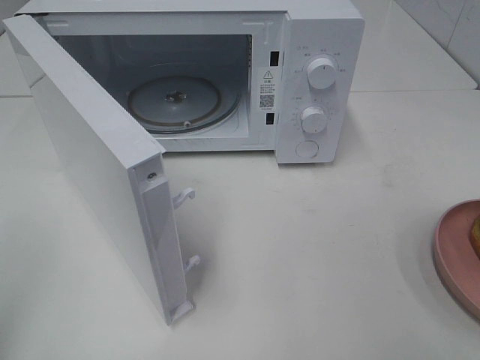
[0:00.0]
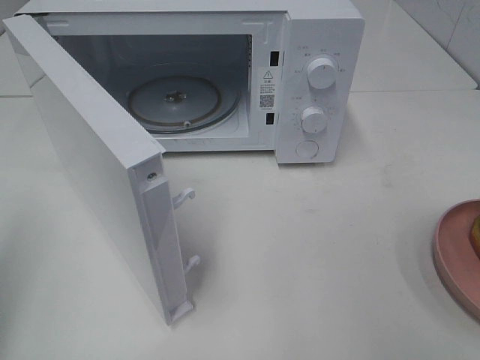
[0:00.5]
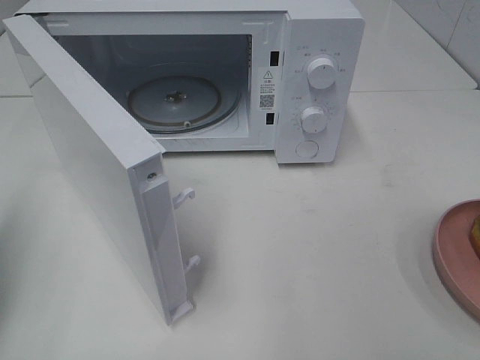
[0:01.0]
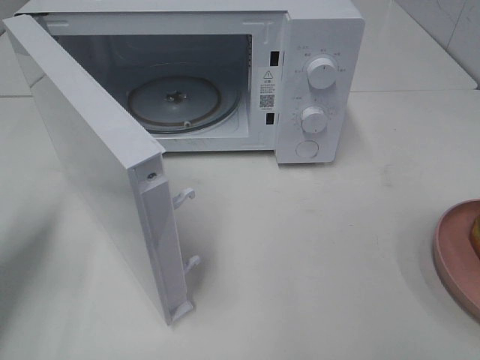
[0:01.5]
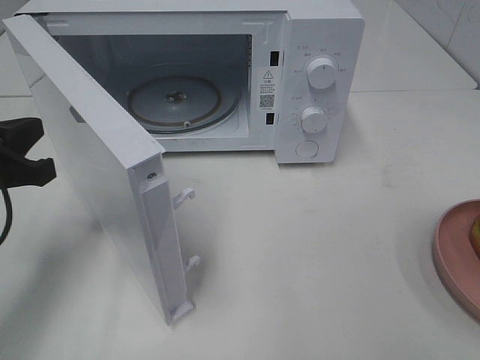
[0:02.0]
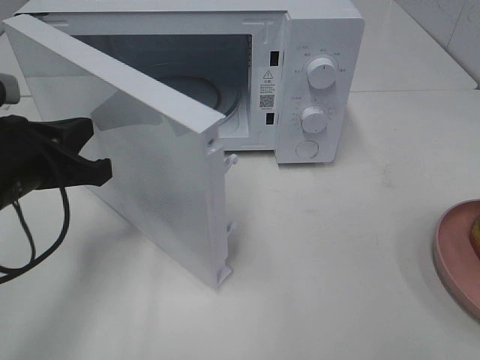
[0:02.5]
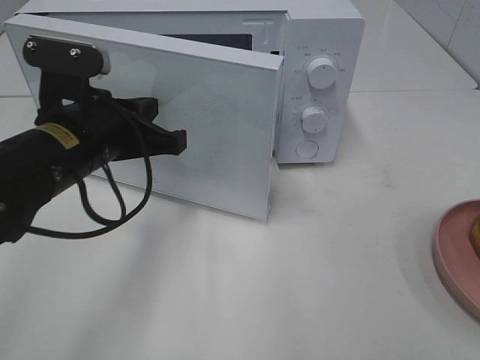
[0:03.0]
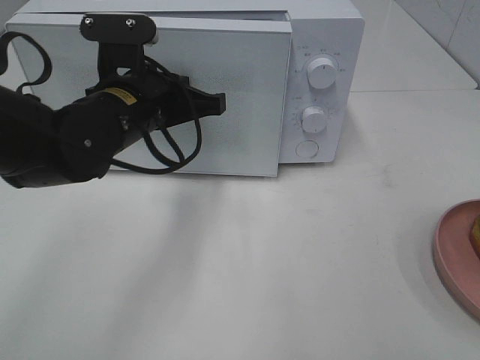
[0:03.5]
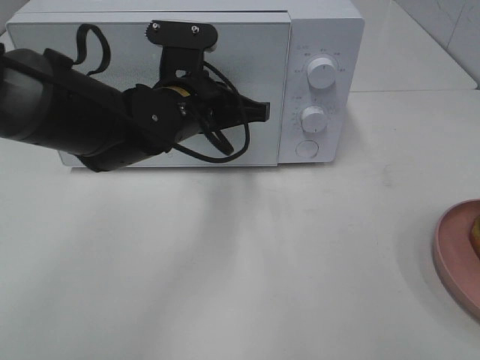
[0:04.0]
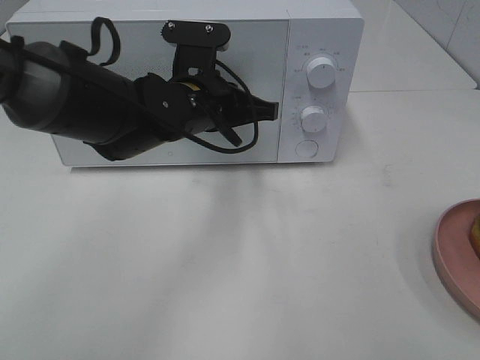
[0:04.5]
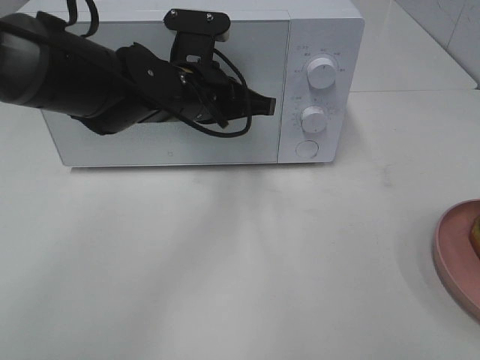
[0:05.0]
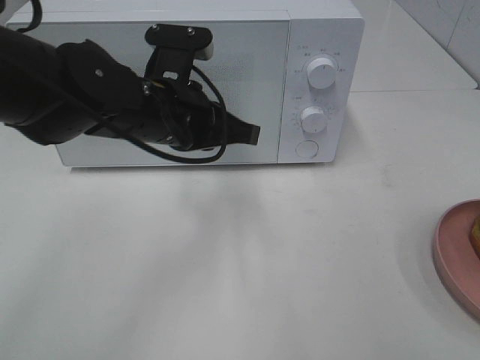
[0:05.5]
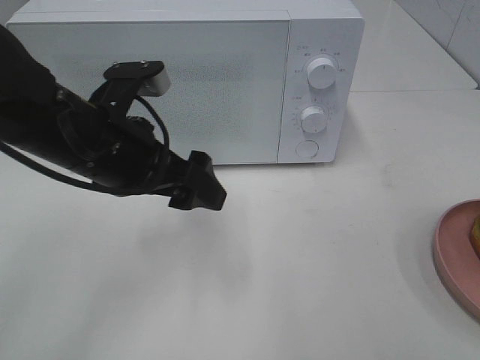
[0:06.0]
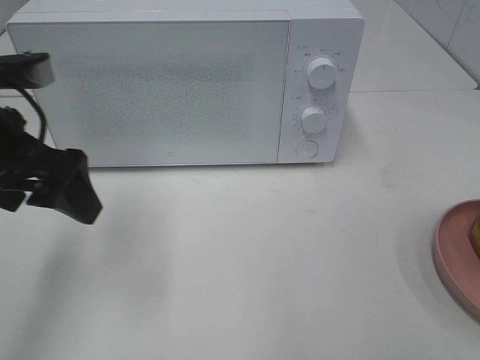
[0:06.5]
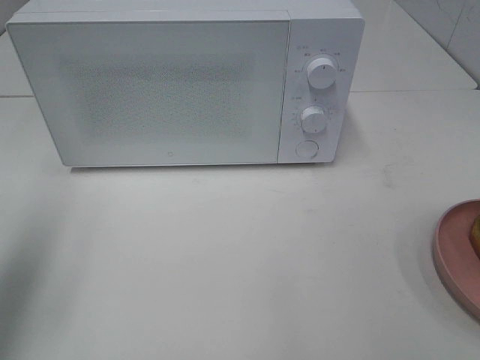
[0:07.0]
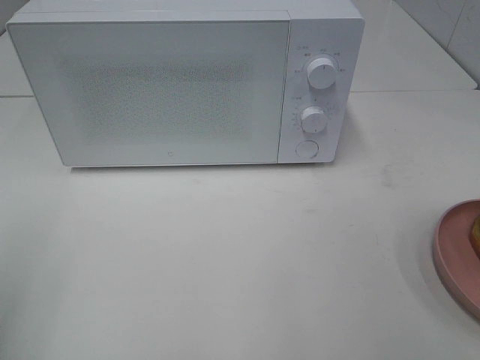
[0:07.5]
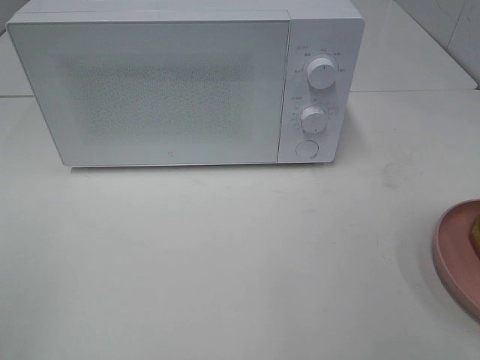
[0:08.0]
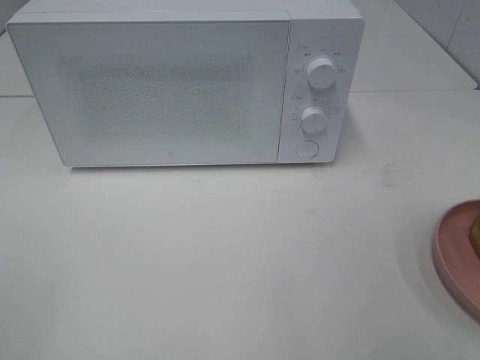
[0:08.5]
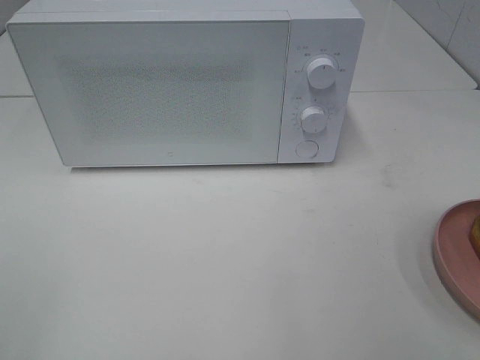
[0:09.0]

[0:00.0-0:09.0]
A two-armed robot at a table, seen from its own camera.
Task of the whole recording: Heat the burger.
Step, 0.0 to 5.0 s: Left hand: close the microwave door.
0.0 to 2.0 s: The left gripper heads forward and downward, covering about 25 cm.
2.0 to 4.5 s: The left gripper is displaced to the right and forward by some 25 cm.
4.5 to 7.0 s: The left gripper shifts approximately 35 cm to the left, backward and upward, and opens up.
7.0 to 9.0 s: The left gripper moves backward, roughly 20 cm.

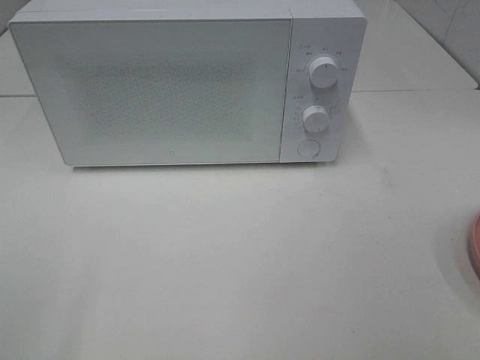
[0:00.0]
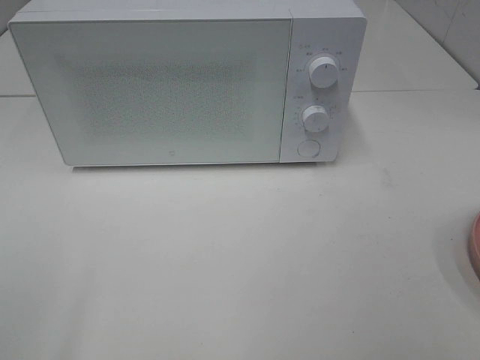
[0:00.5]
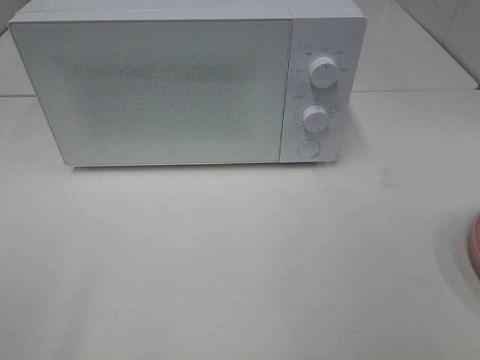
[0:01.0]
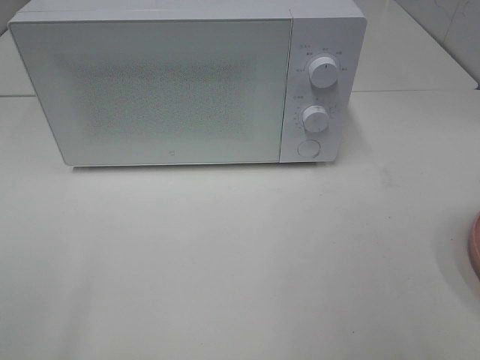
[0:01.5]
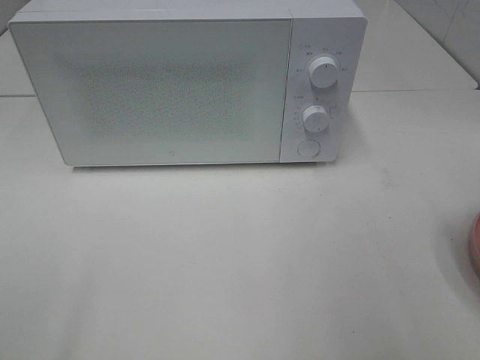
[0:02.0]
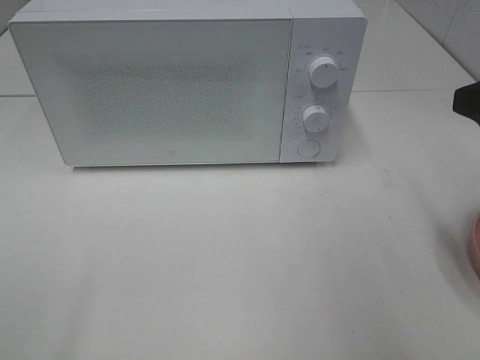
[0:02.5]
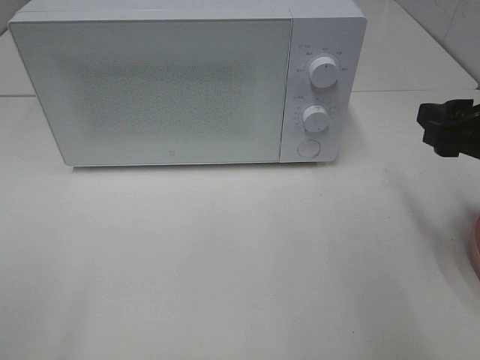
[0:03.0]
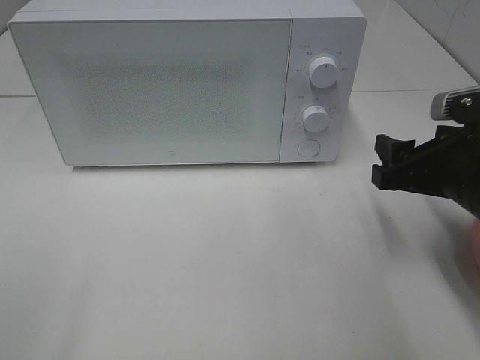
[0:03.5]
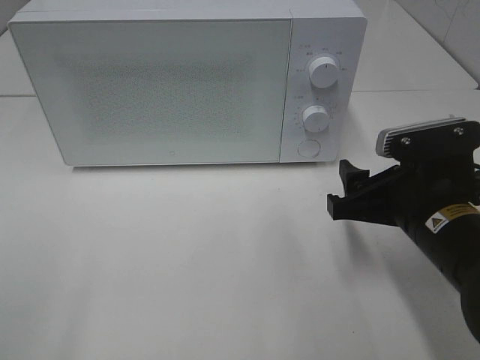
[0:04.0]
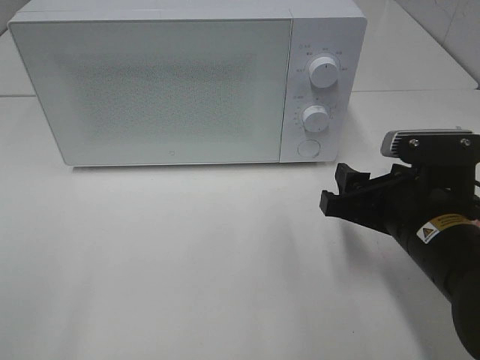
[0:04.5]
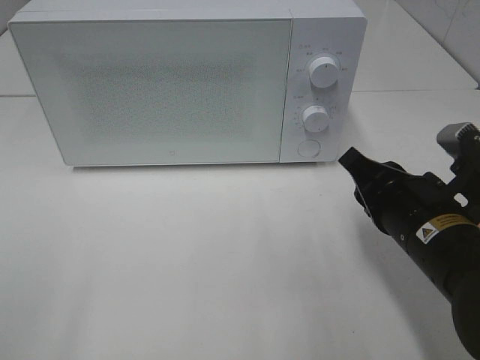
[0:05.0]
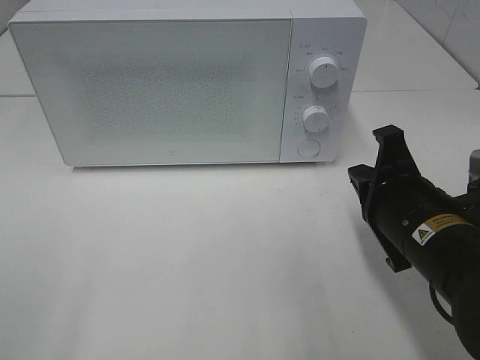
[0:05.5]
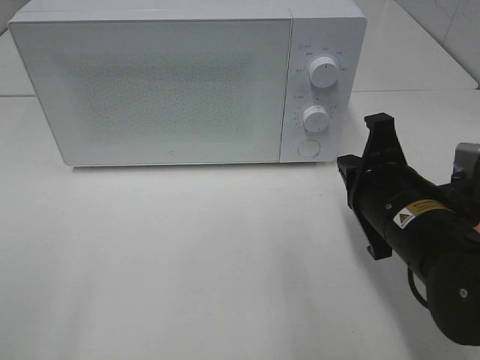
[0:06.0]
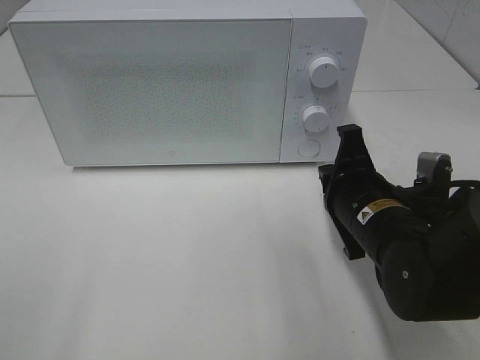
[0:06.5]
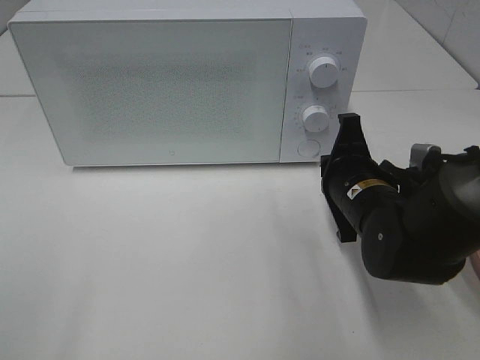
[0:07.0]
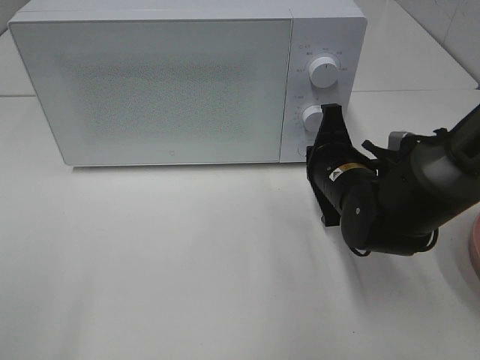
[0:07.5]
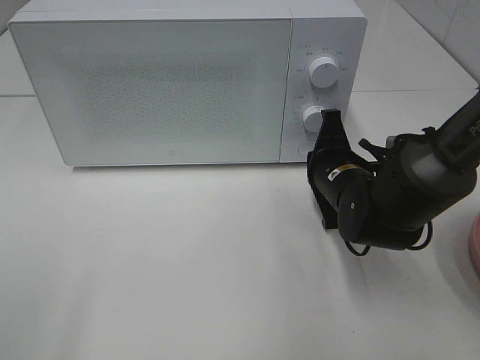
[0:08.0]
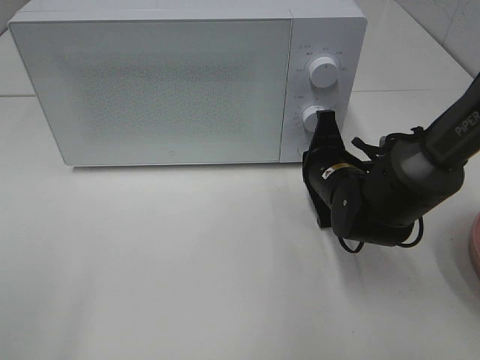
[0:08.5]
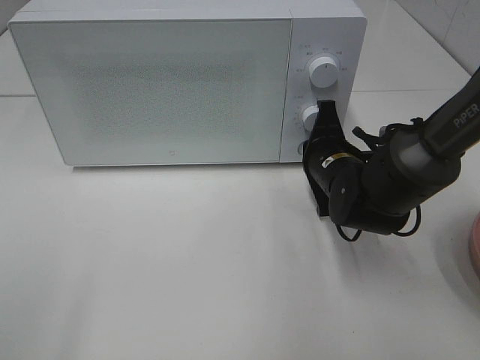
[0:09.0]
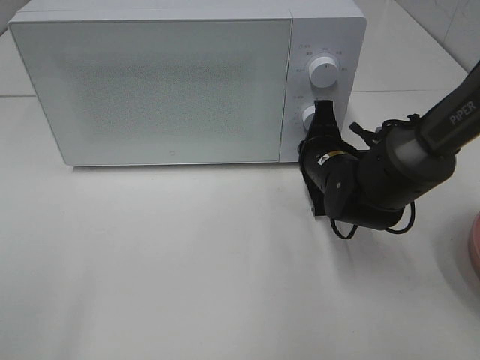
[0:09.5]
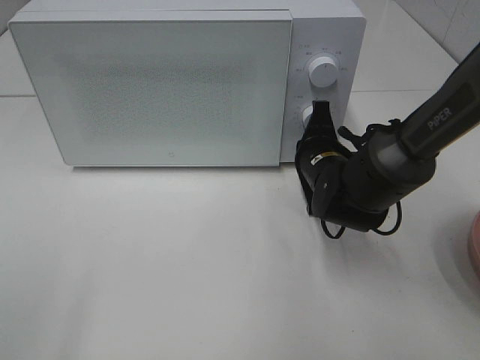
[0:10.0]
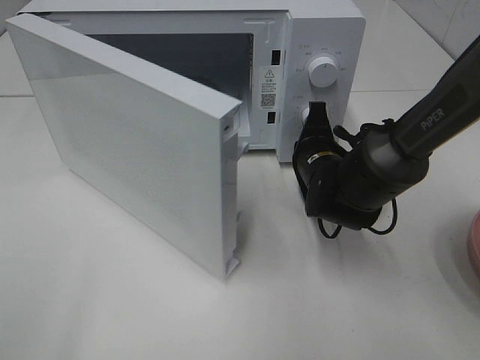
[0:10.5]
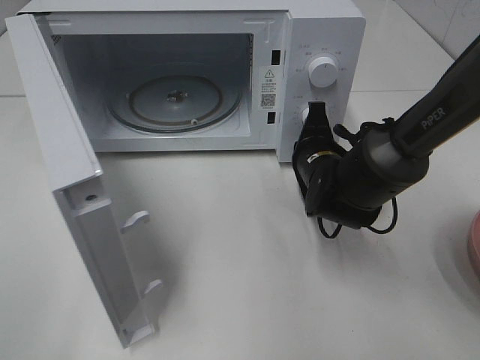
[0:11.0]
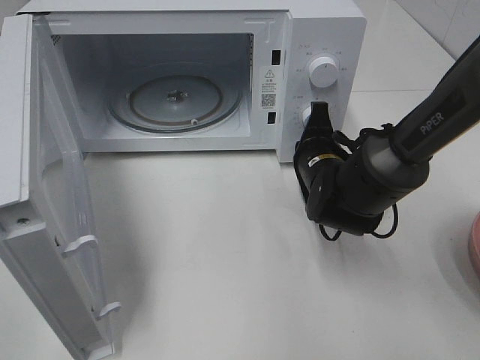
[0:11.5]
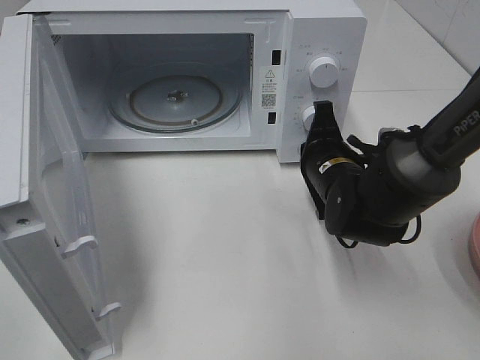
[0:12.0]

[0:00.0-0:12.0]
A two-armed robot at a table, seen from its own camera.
Task of the whole recording: Heat the burger.
Step, 0.0 to 11.5 s: Right hand: press the switch.
2.0 to 4.0 s: The right gripper goes approximately 20 cm downward, to the left and forward.
4.0 to 6.0 s: The right gripper closes.
6.0 to 8.0 s: The right gripper is displaced forward and downward by roughly 10 cm.
8.0 to 10.0 s: The grippers make only small movements.

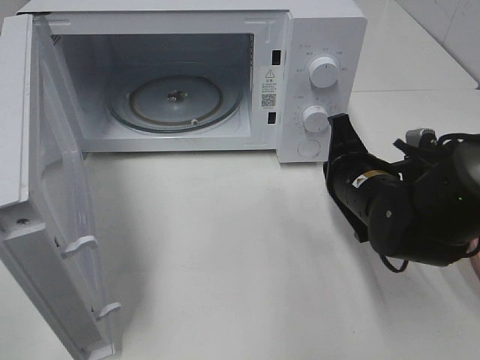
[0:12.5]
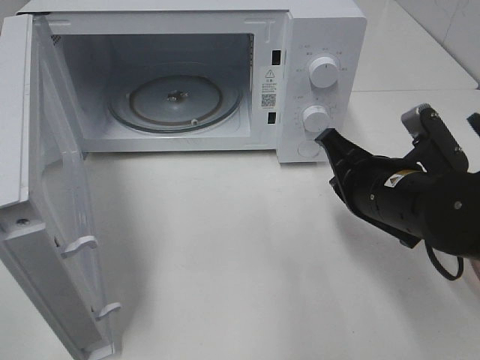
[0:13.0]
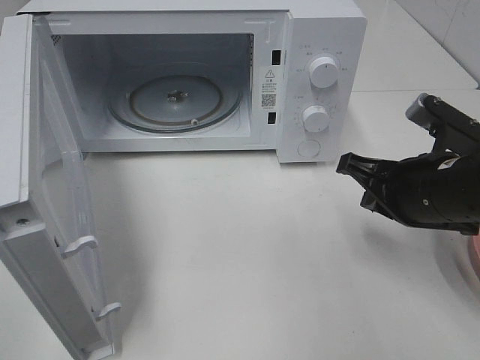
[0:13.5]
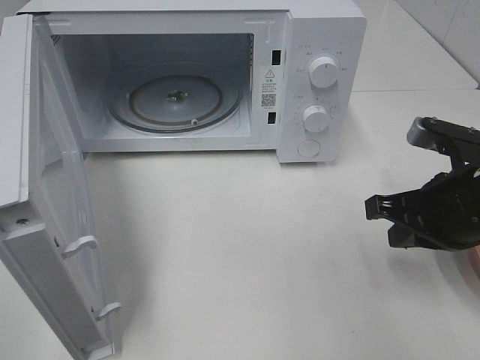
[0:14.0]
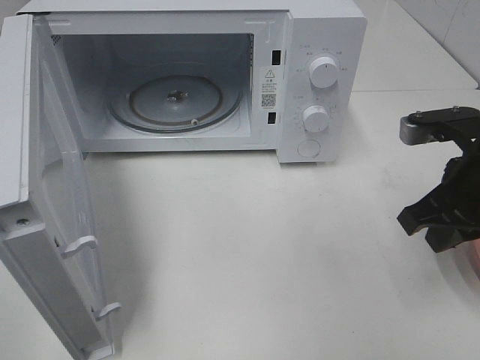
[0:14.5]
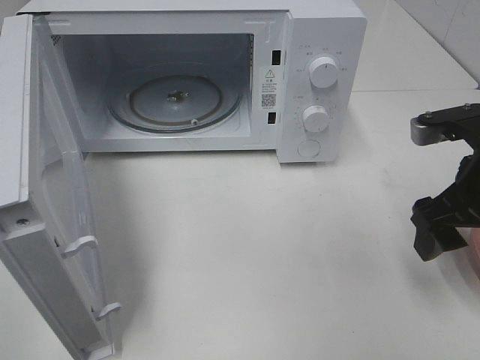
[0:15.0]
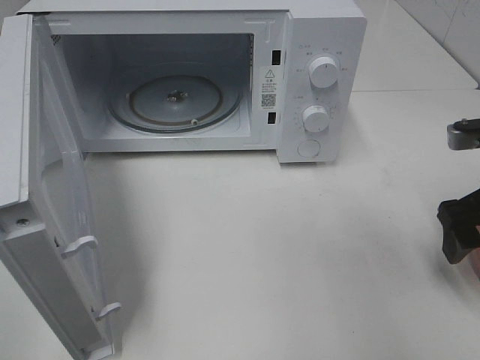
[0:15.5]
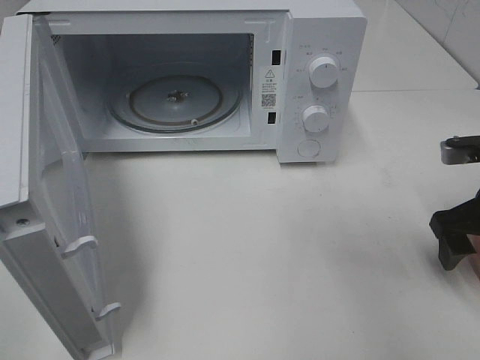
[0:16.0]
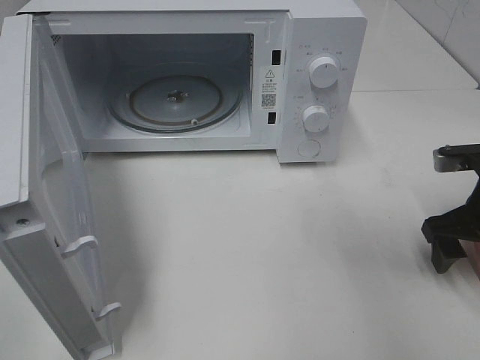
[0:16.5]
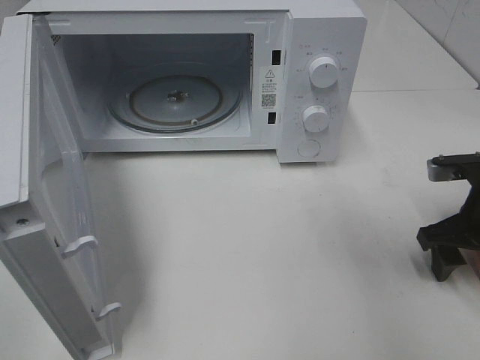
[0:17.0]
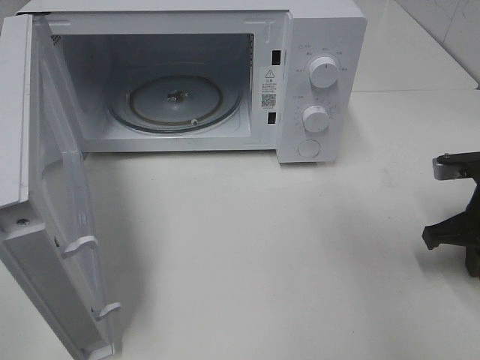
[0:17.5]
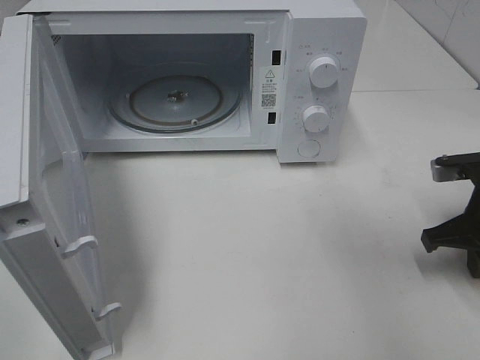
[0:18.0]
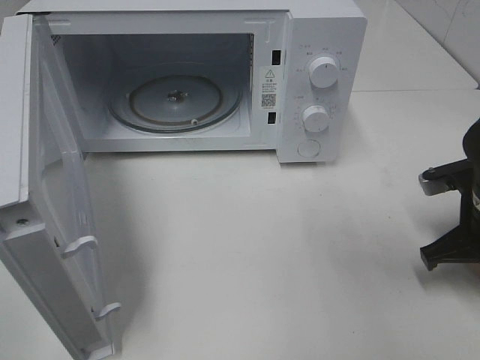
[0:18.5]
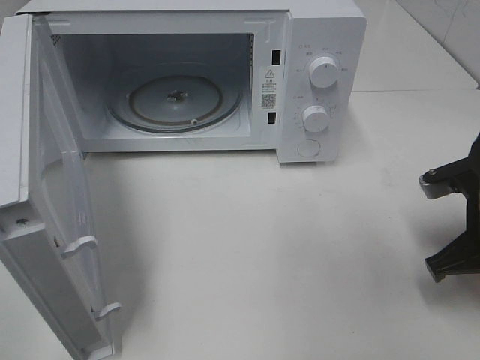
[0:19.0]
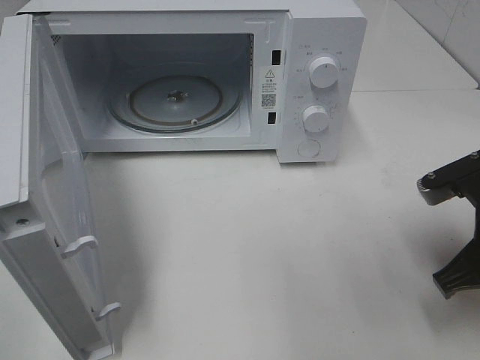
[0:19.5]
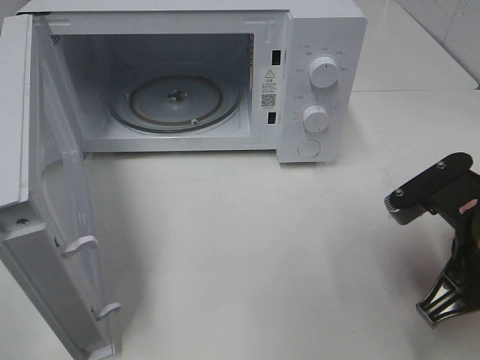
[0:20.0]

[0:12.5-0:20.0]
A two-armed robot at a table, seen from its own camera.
Task of the whole recording: Heat the burger.
Step, 12.5 to 18.0 s: Right hand: grab the plate with the hamburger.
12.5 to 14.5 s: The right gripper goes about 10 cm upward and to the right.
14.5 to 16.5 s: The right gripper shifts roughly 10 cm downward and to the right, and opens up.
16.5 to 18.0 s: The right gripper closes up.
18.0 to 20.0 s: The right gripper heads backward, to the left and upward, covering some 15 cm.
